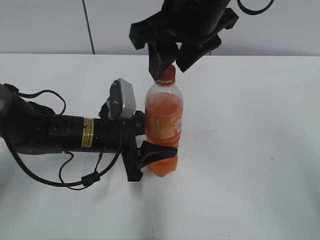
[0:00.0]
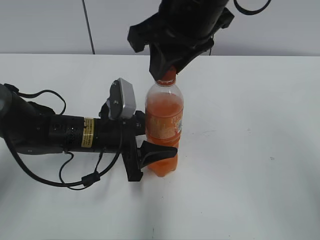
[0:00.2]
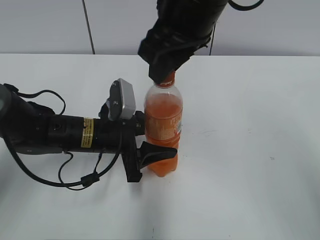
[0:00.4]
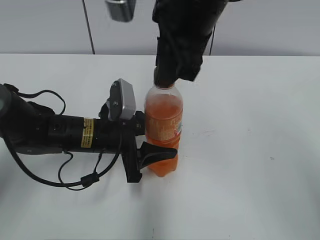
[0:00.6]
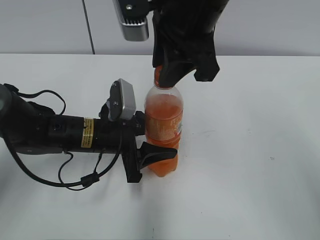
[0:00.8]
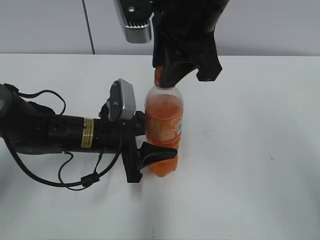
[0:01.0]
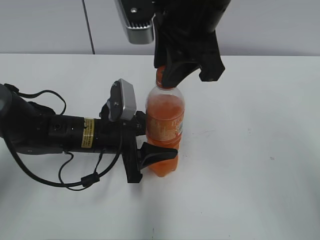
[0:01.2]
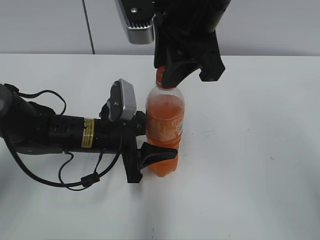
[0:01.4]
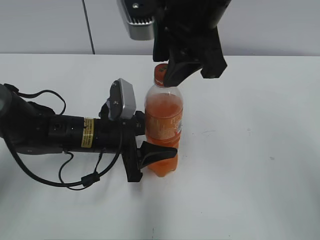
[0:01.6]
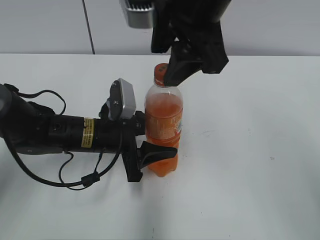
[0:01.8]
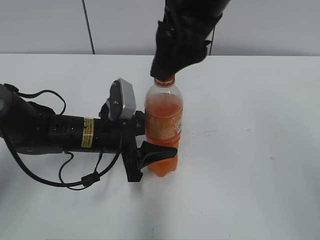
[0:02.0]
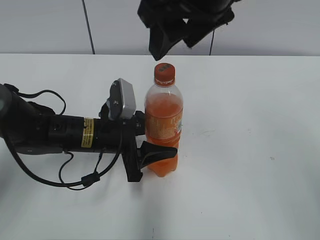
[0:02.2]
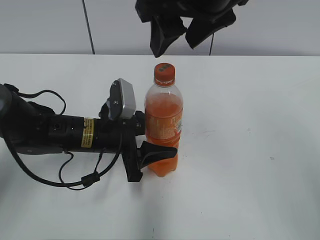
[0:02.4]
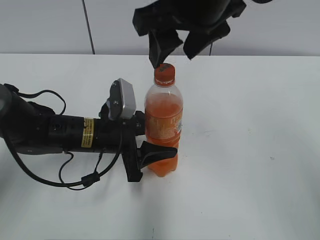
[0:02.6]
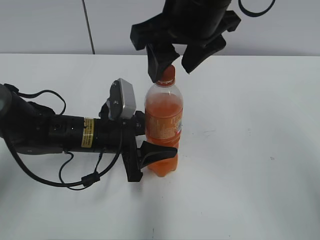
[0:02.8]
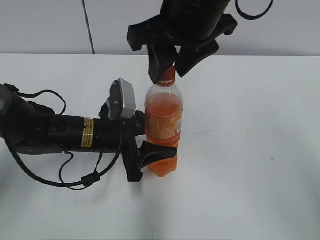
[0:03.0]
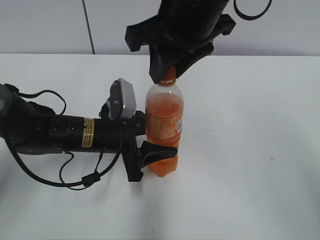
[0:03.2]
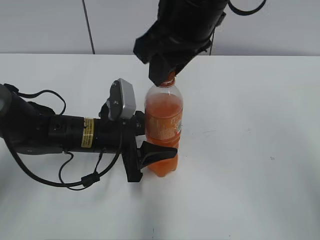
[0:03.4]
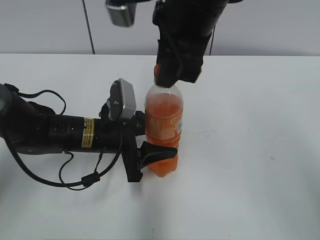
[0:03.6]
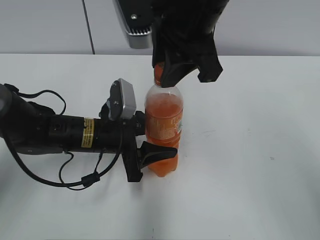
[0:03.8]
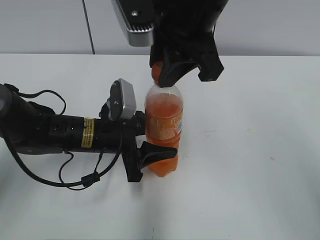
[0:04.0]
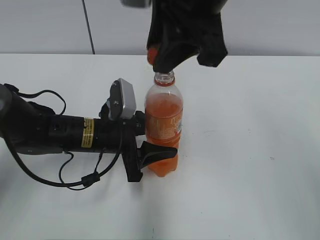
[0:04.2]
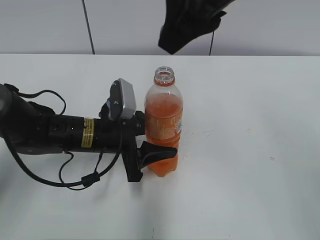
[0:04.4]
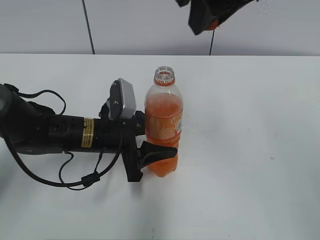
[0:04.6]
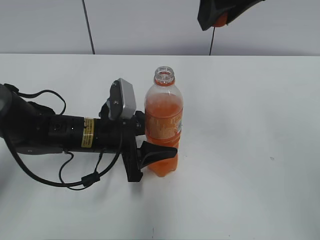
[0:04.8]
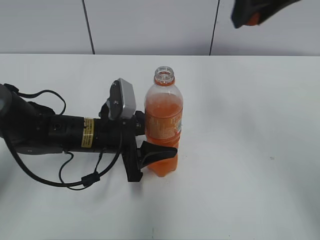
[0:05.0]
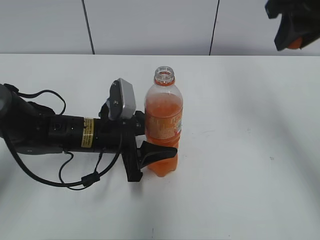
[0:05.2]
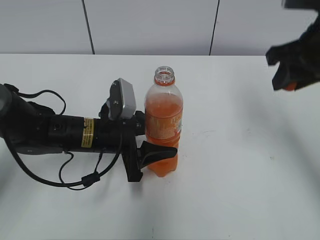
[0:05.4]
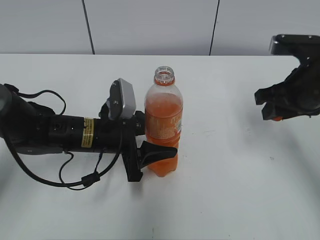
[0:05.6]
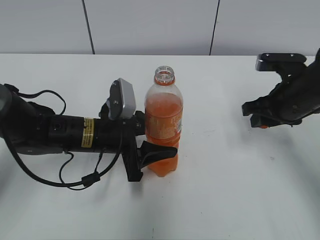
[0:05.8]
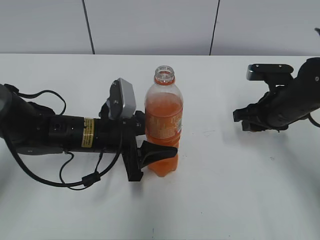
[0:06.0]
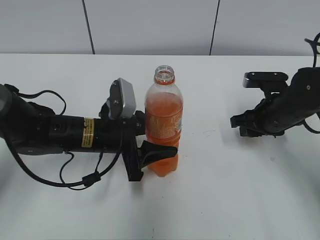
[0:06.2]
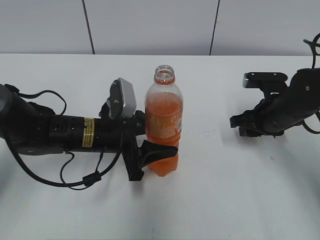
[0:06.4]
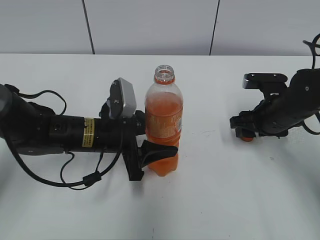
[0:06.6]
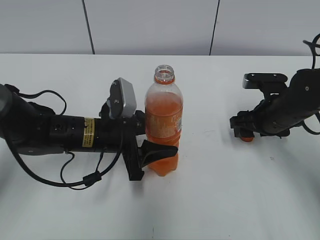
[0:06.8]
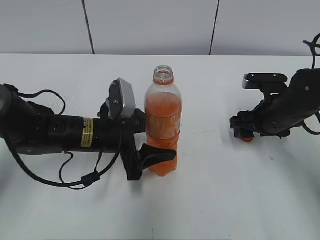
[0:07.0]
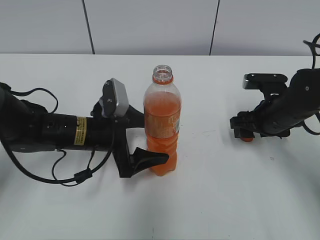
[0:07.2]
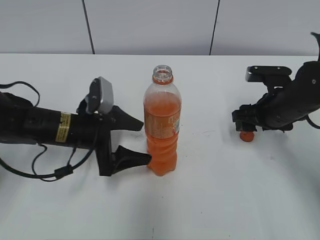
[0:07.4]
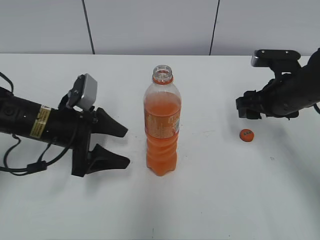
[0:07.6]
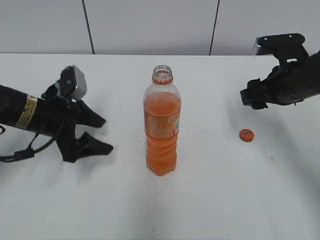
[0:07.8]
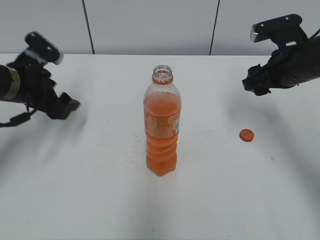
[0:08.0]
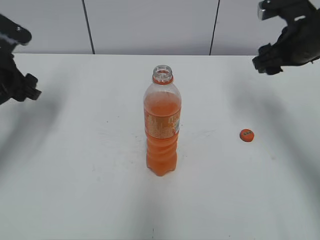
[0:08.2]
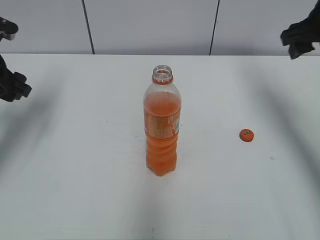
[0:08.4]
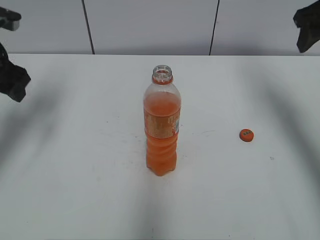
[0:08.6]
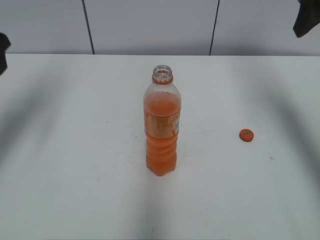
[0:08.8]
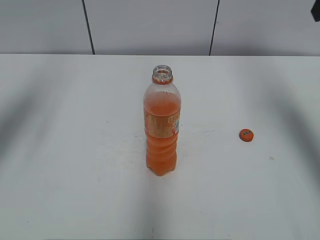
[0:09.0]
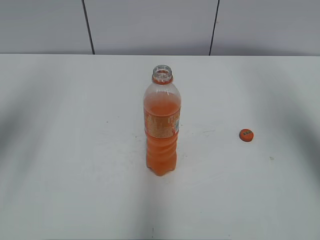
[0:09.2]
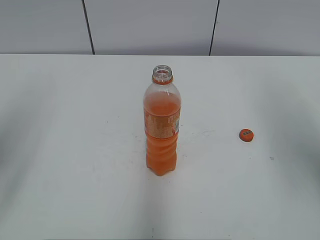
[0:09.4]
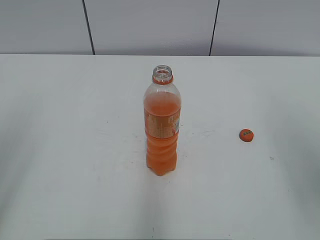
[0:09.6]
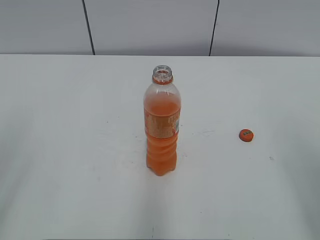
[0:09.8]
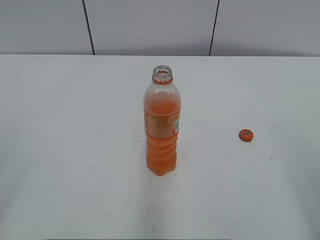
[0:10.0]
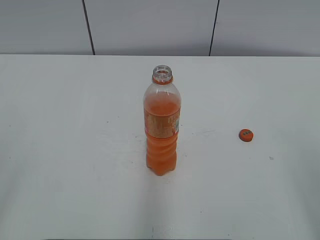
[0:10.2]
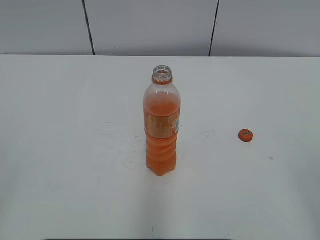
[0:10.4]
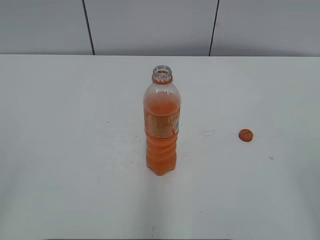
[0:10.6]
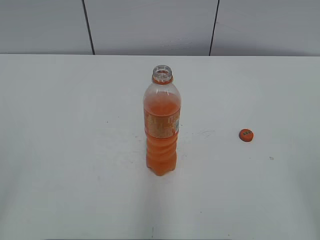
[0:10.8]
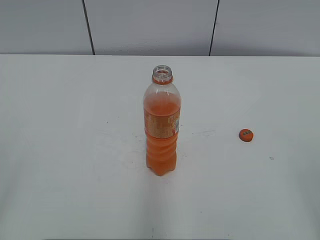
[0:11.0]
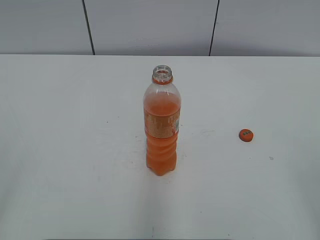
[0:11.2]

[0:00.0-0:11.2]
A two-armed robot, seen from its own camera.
Step, 0:04.4 to 0:06.4: Place the bottle cap on the right.
Step, 0:06.8 to 0:07.0: Place the Mirinda with the left hand.
0:00.0 to 0:01.6: The right gripper closes, then reopens.
0:01.6 to 0:03.2: The right gripper closes its fingers.
0:03.2 to 0:04.8: The right gripper heads upward and to the right, covering roughly 10 cm.
0:04.8 to 0:06.4: The right gripper moves downward and to the right, roughly 30 cm.
0:06.4 to 0:08.0: The left gripper is displaced to the left and upward by some 15 cm, and opens; the right gripper shifts approximately 10 cm upward, and opens its fingers.
0:08.0 to 0:09.6: Both grippers travel together backward and upward, approximately 25 cm.

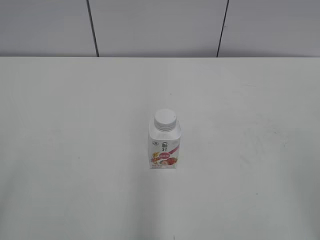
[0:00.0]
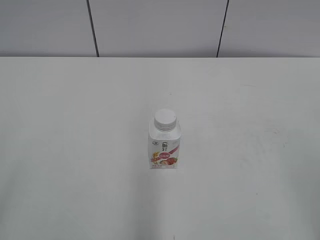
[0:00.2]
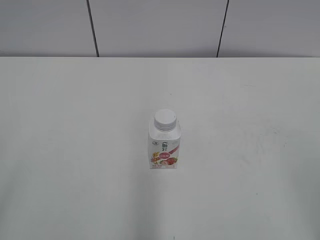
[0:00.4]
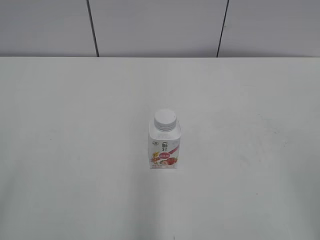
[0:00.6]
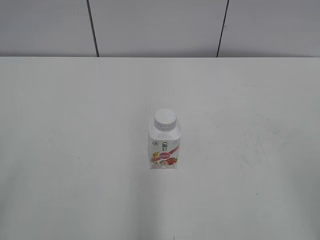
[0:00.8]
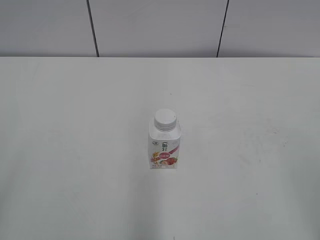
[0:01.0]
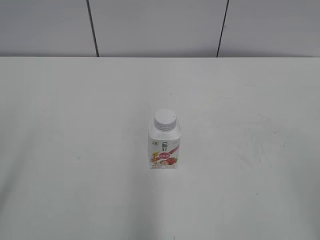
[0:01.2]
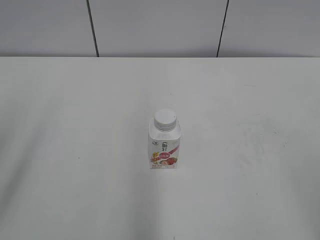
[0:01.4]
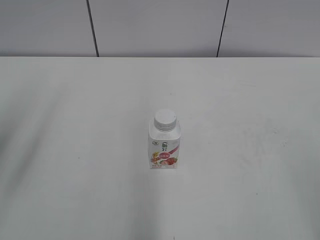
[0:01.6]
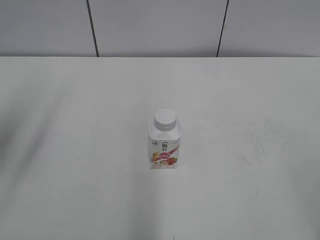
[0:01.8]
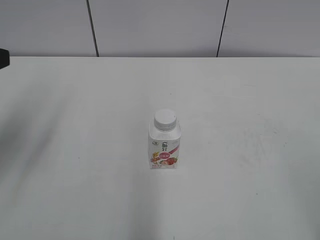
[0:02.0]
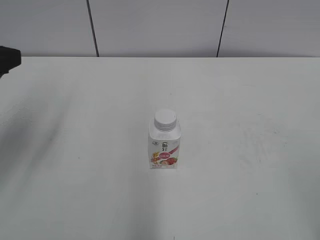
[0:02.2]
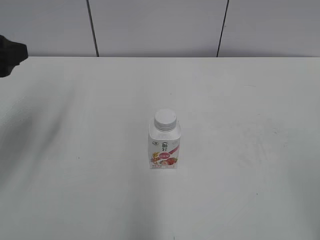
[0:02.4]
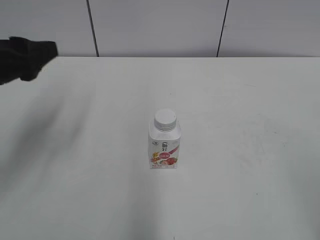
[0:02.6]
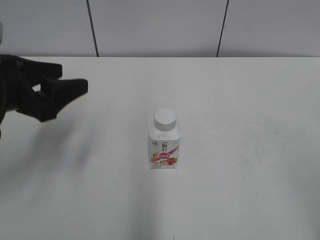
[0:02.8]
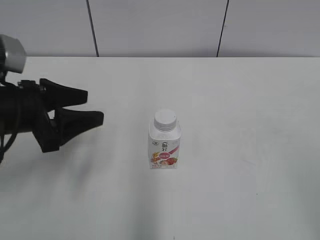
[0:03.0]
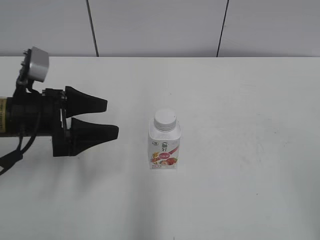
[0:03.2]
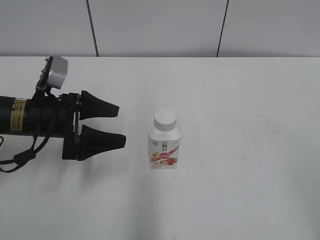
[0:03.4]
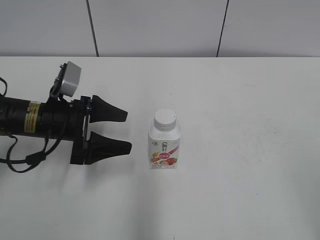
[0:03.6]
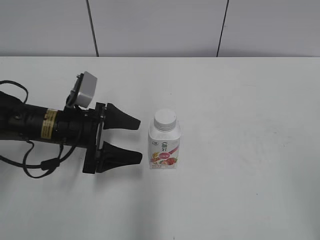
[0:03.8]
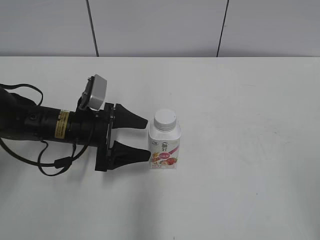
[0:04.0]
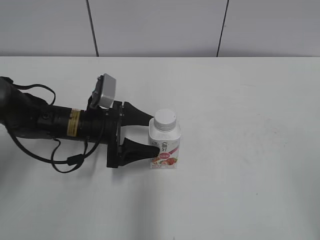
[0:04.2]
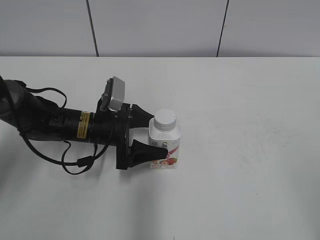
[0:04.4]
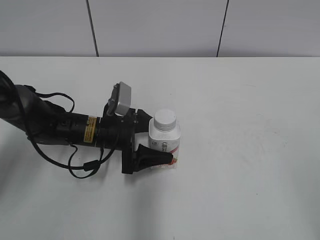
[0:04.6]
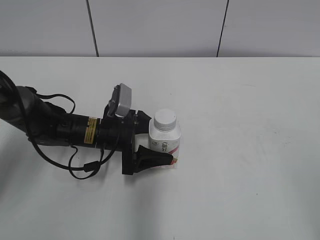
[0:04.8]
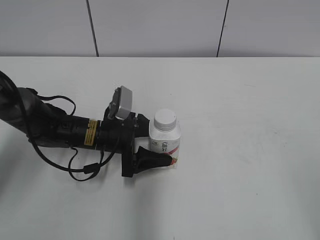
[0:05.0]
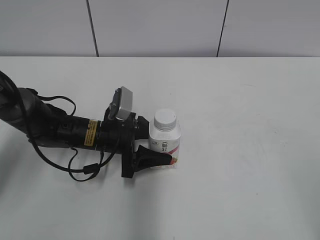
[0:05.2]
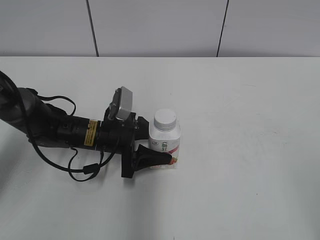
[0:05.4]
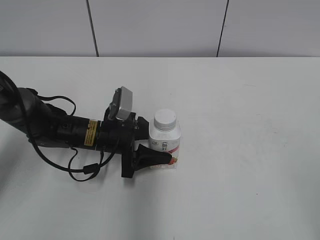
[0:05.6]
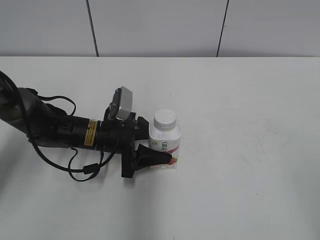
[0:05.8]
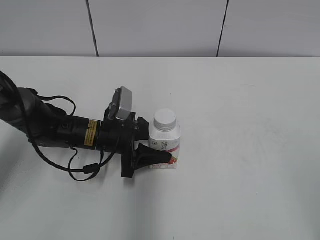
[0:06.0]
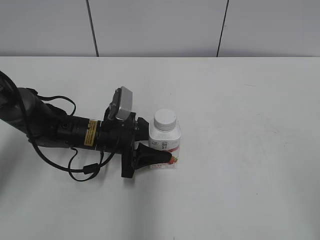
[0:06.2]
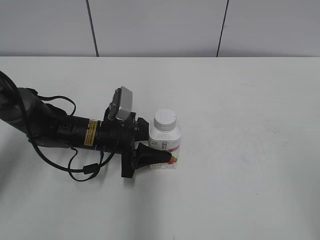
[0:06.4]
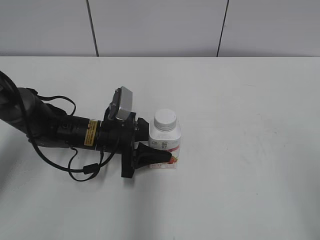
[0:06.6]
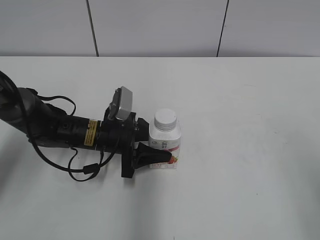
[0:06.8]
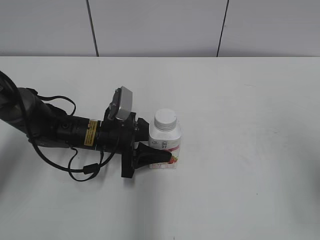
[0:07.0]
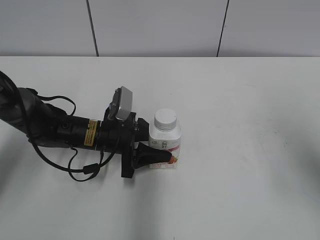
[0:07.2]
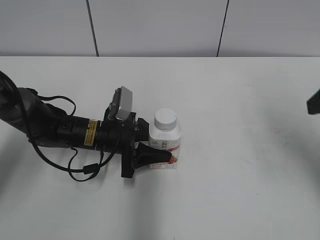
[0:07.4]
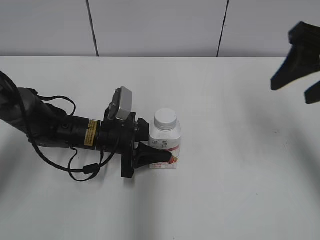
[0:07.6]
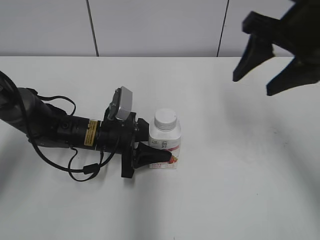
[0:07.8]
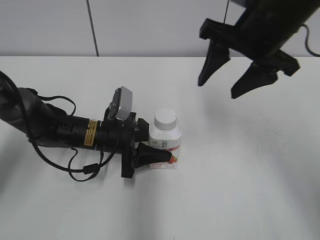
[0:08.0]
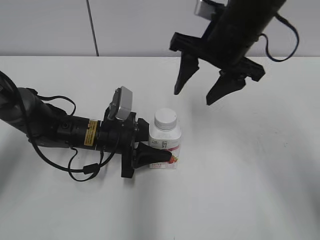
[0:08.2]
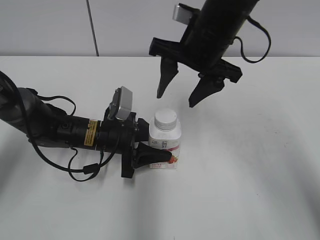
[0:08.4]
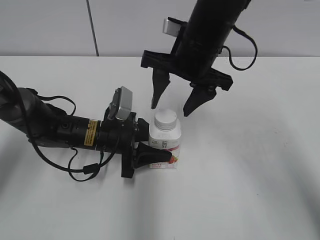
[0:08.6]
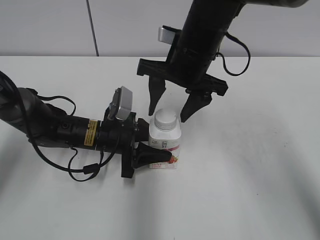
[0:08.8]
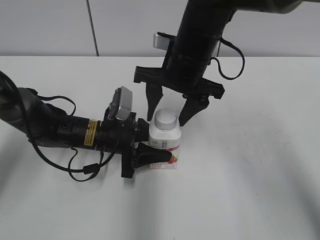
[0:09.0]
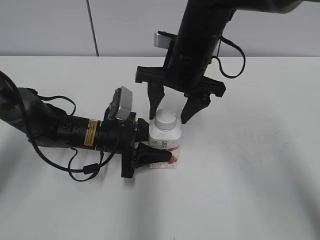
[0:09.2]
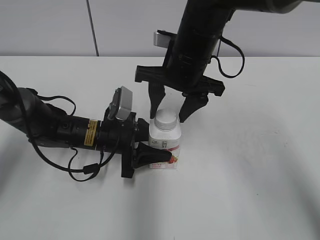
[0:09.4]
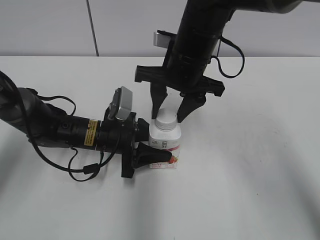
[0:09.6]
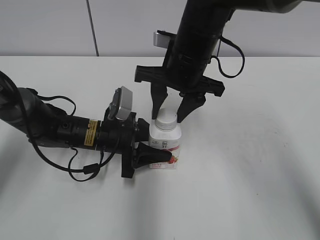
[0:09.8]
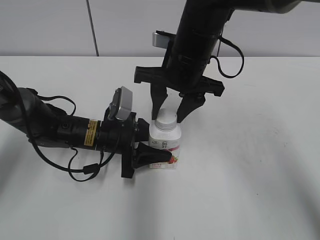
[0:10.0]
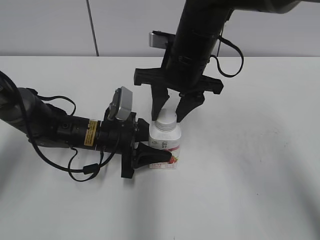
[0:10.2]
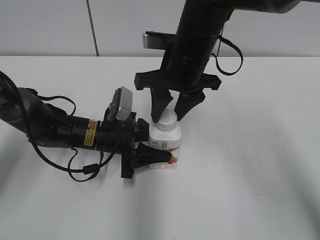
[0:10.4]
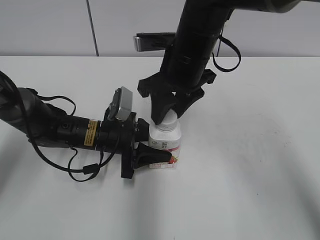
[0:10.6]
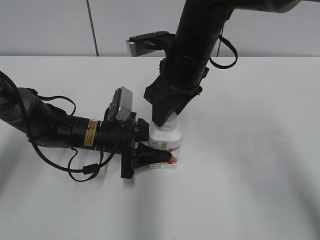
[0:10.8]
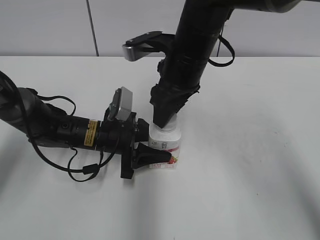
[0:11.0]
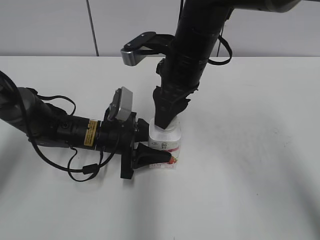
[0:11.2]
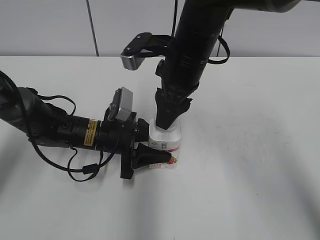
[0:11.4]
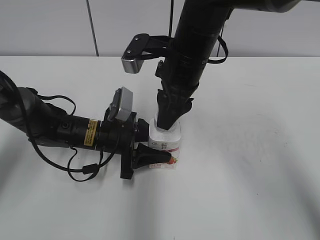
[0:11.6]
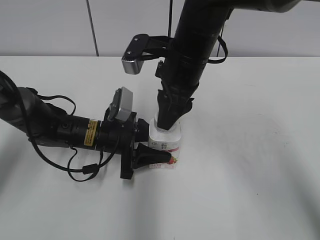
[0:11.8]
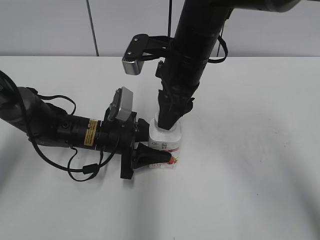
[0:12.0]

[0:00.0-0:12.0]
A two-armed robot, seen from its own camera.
Step, 0:00.0 to 0:05.8: Grab the Yili Changqing with the left hand.
0:01.6 to 0:03.0: The left gripper heads forward and downward, covering some 20 cm.
0:03.0 to 0:04.4: The left gripper moves downward, to the right and forward, some 20 cm, and opens its fingers.
0:04.4 to 0:06.0: The left gripper closes up.
0:06.0 to 0:07.6: The right gripper heads forward, covering some 20 cm.
0:07.6 to 0:09.0: The right gripper goes approximately 25 cm to the left and forward.
0:09.0 to 0:10.4: The right gripper closes.
